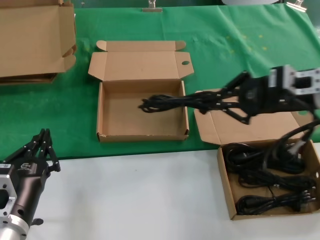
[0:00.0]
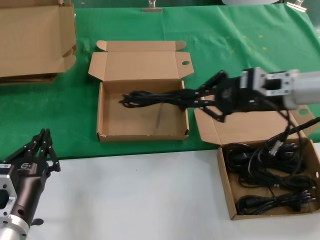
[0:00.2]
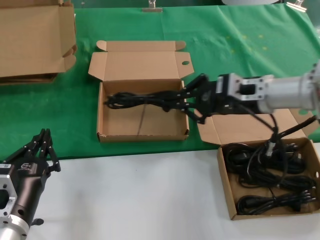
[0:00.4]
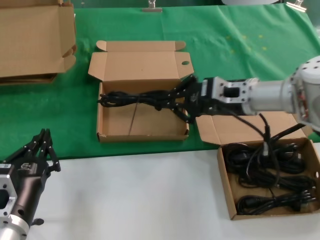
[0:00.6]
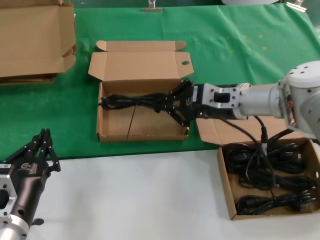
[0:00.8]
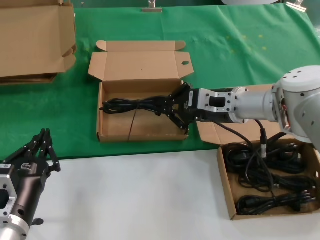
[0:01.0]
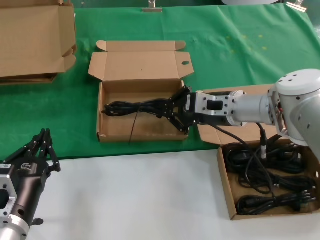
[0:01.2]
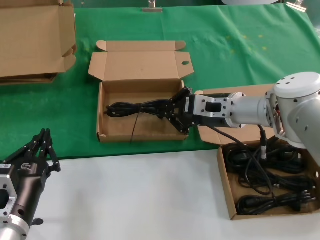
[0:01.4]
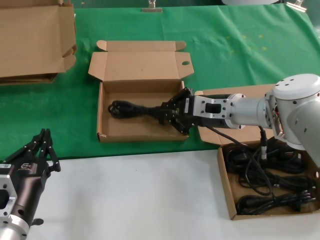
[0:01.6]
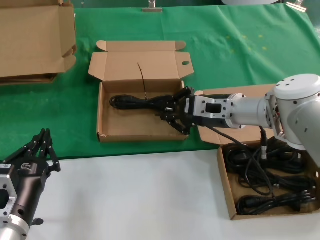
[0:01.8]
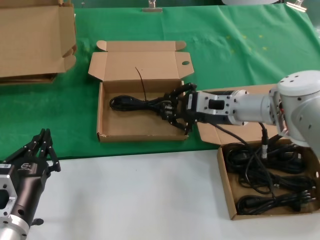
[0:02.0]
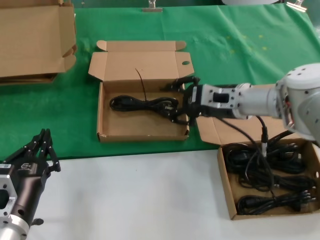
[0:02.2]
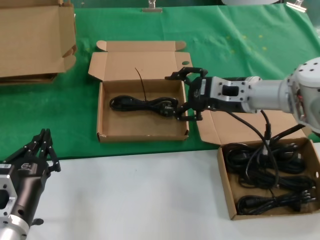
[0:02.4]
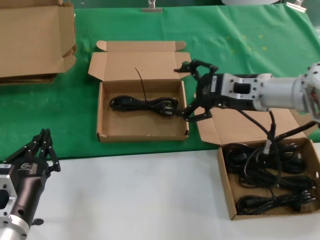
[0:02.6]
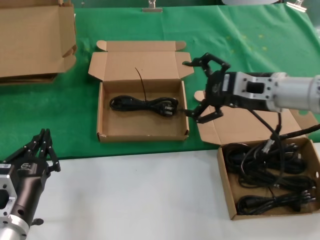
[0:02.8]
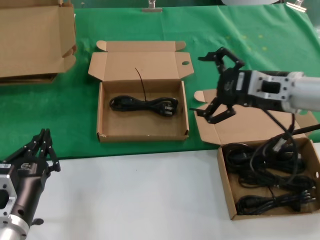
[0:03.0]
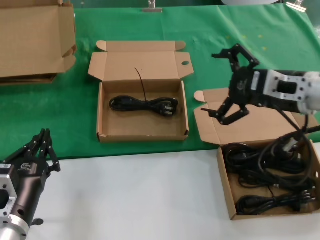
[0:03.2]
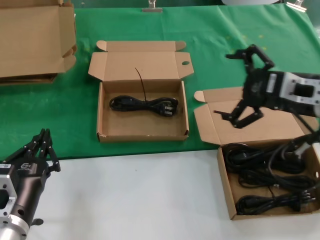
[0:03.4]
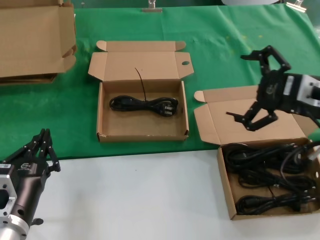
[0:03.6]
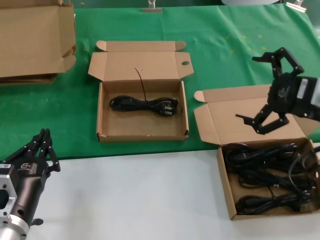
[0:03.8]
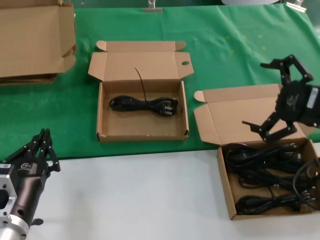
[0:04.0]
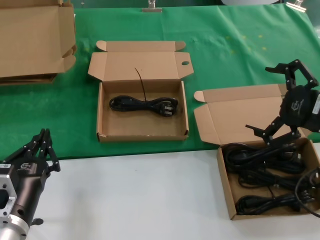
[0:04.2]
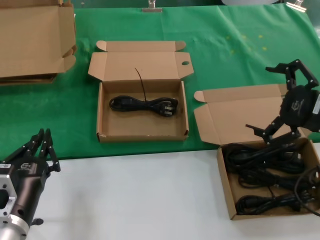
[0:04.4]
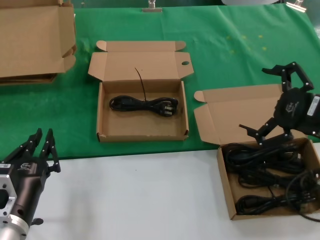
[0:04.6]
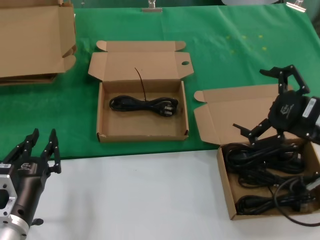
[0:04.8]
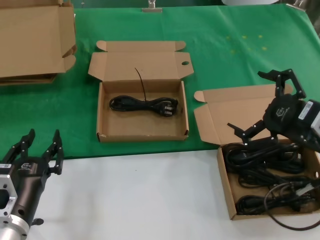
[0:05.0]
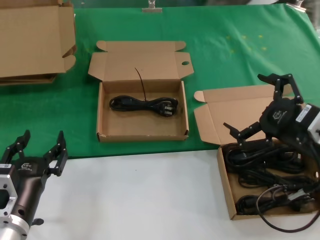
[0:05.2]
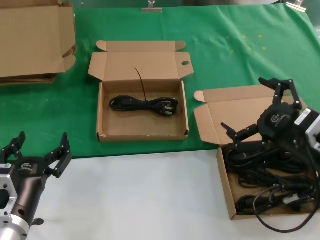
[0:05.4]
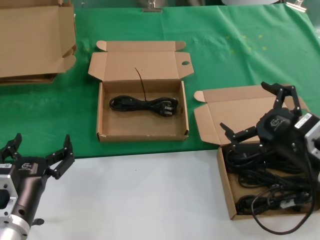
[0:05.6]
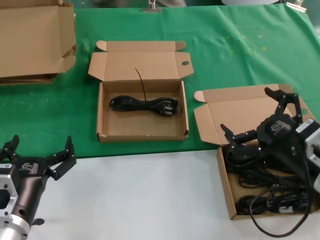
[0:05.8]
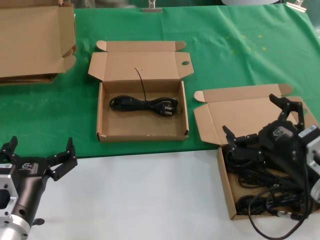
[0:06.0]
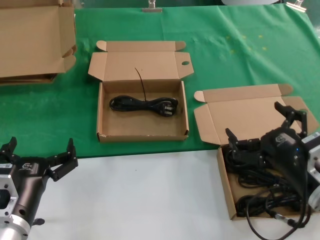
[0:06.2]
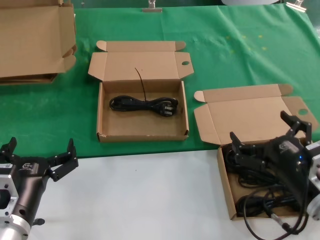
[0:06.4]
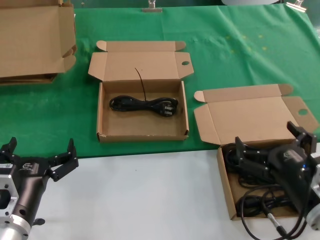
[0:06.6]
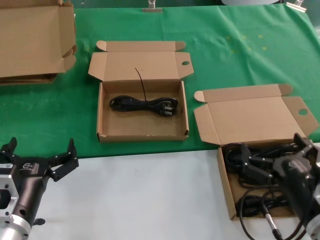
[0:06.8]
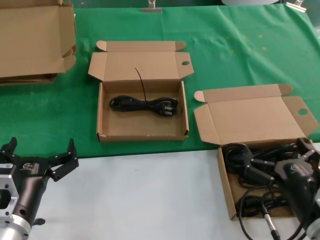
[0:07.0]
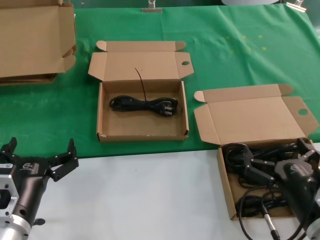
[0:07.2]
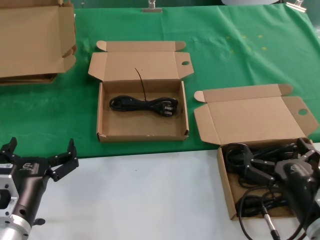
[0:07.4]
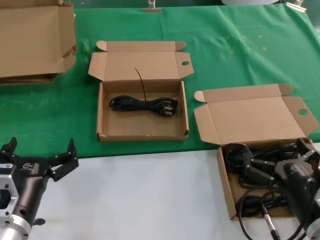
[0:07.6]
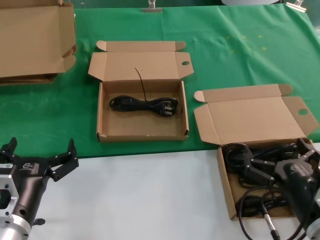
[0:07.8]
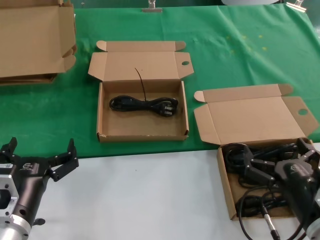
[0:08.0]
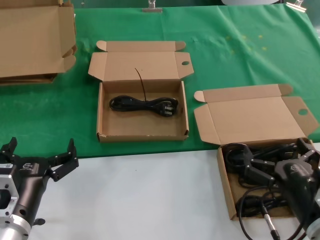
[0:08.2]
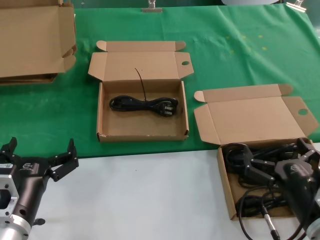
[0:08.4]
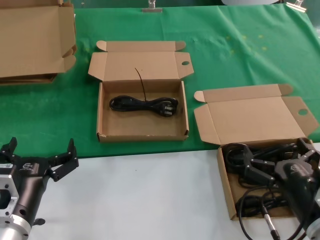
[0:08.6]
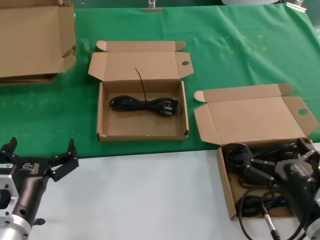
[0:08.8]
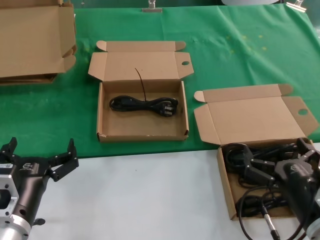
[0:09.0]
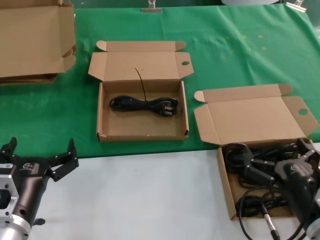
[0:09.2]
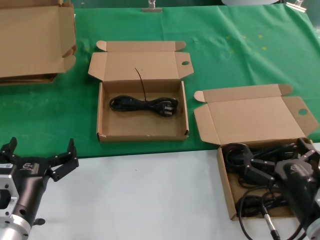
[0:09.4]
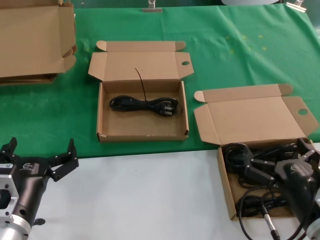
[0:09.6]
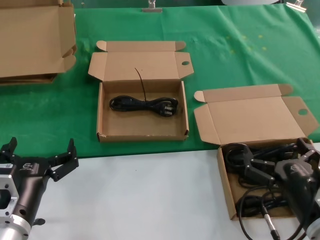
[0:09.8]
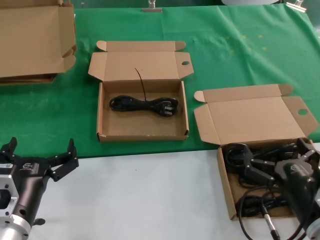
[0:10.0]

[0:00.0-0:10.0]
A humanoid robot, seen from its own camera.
Task of the whole recording: take the parts from the box containing them and put them into an empty box.
Step, 0:00.0 to 0:02.0: Place the data cable in the another box.
0:00.0 to 0:01.4: The right hand is displaced to the left, downward and forward by approximately 15 cm.
0:01.4 to 0:02.8: The right hand shifts roughly 10 cm upward and to the right.
0:02.8 to 0:04.2: The right hand is displaced backward and to the right by roughly 15 cm.
0:04.2 to 0:05.8: The right hand heads downward and to the left, covering roughly 10 cm.
0:05.8 to 0:07.2: The right hand moves downward and backward, roughly 10 cm.
0:07.2 to 0:10.0: The two hands keep their place.

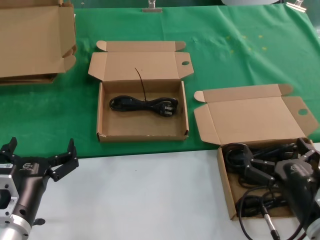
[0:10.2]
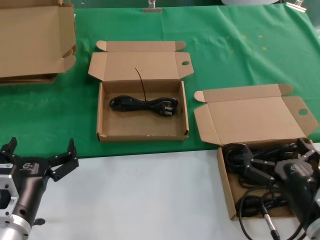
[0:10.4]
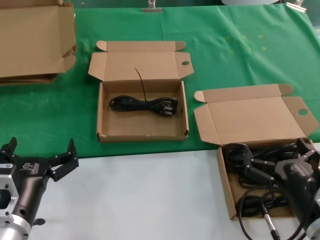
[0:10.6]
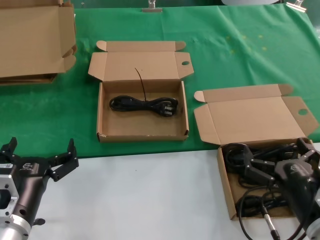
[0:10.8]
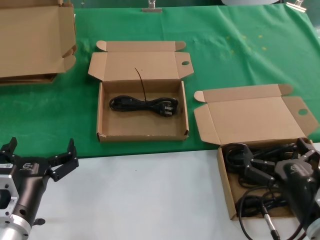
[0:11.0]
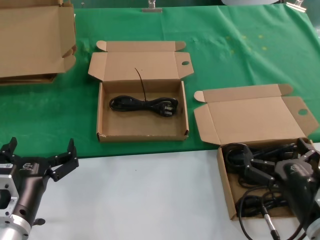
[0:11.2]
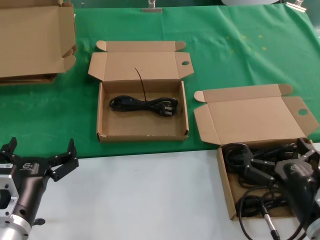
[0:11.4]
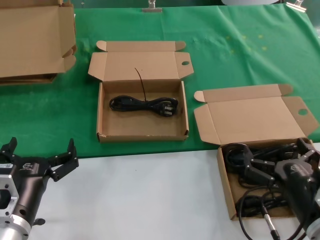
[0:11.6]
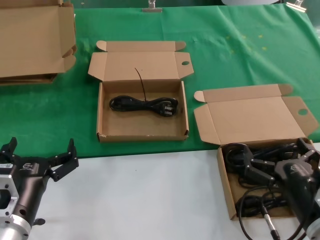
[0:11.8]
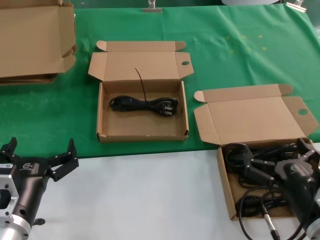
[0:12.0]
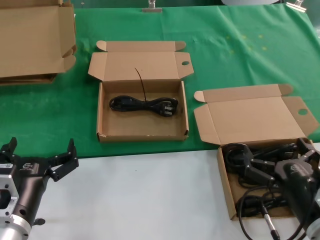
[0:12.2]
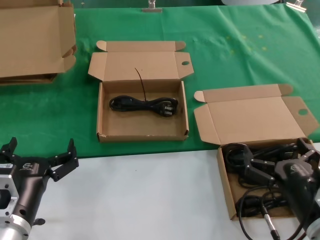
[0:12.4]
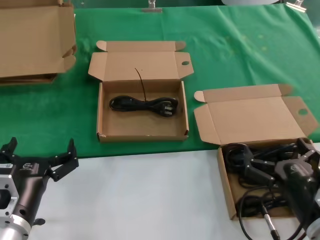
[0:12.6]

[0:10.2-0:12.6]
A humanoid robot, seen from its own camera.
Task of the whole recording: take the parts from the box containing them and put them into an empty box.
0:10.2 to 0:12.6: Both hands stay put.
